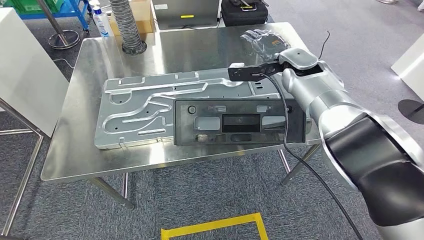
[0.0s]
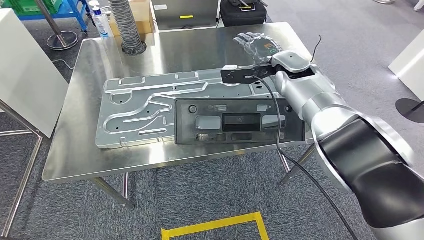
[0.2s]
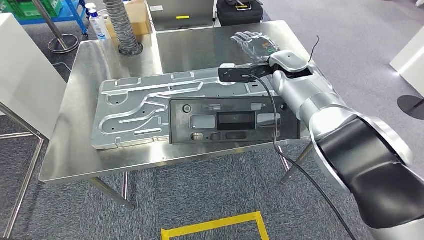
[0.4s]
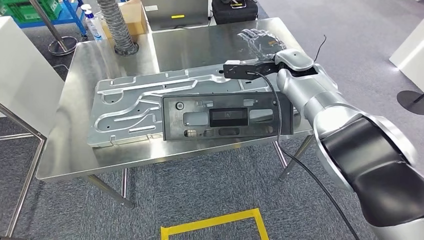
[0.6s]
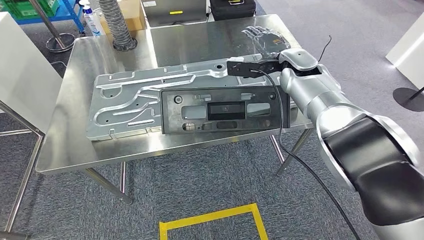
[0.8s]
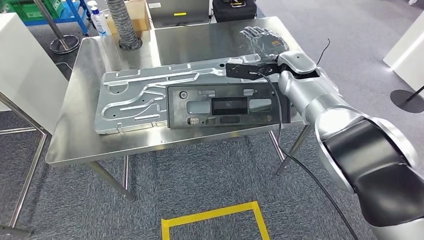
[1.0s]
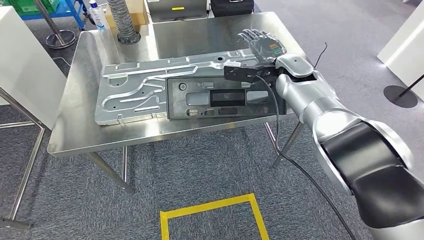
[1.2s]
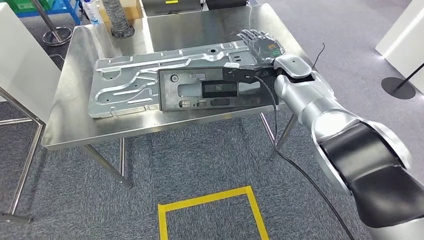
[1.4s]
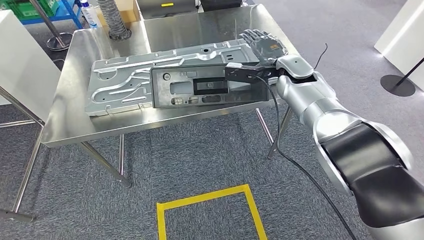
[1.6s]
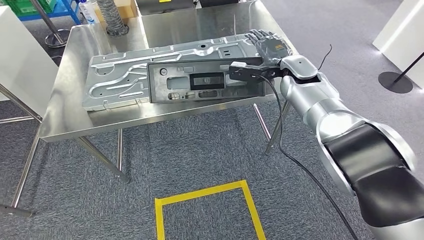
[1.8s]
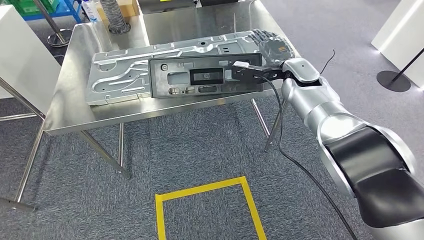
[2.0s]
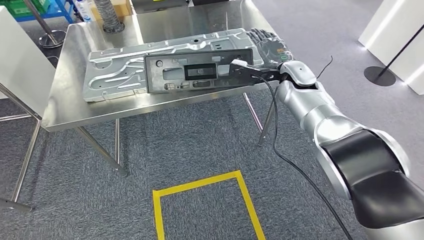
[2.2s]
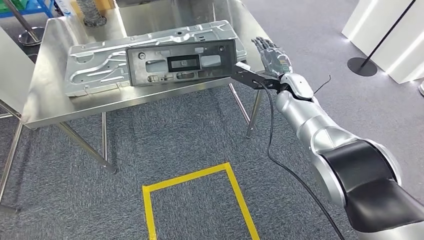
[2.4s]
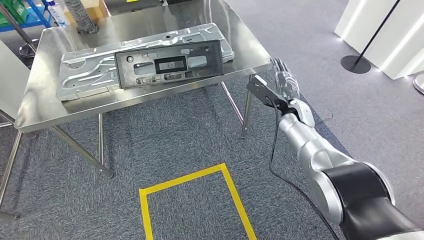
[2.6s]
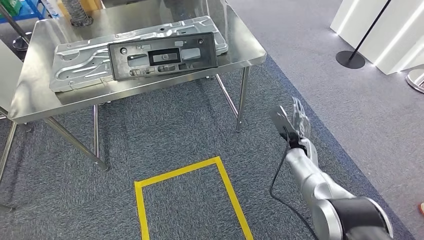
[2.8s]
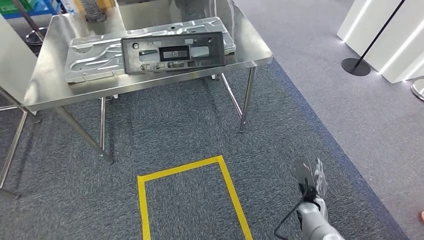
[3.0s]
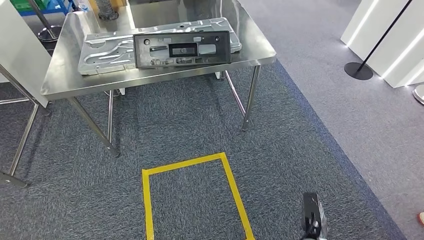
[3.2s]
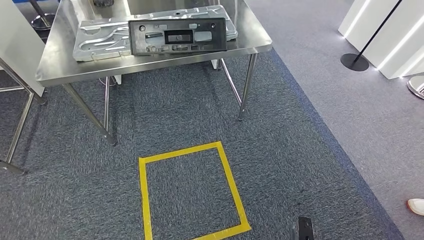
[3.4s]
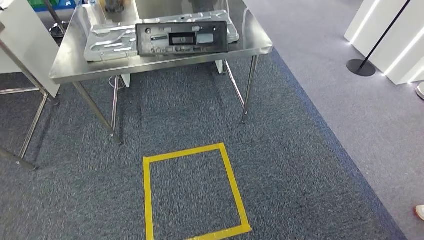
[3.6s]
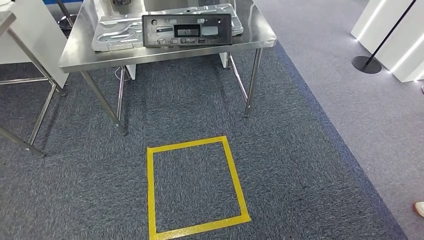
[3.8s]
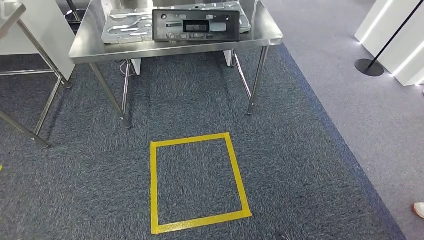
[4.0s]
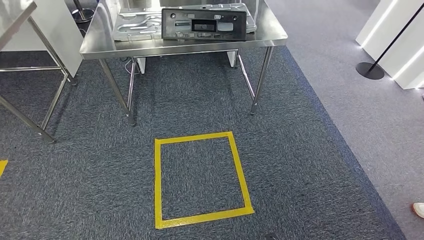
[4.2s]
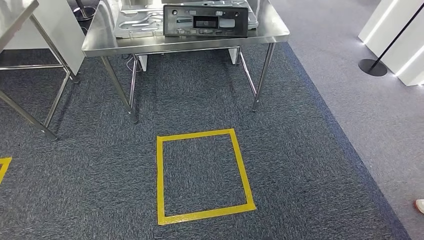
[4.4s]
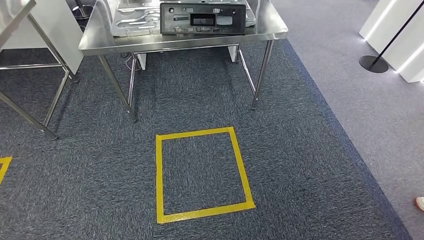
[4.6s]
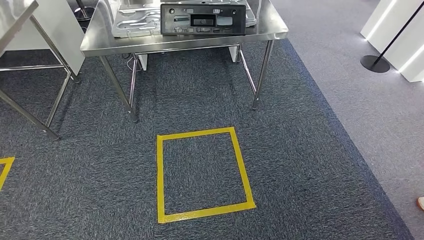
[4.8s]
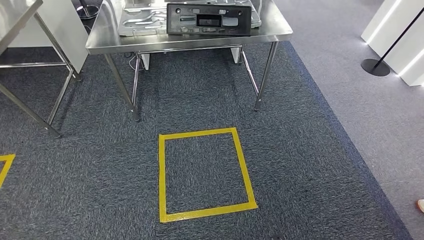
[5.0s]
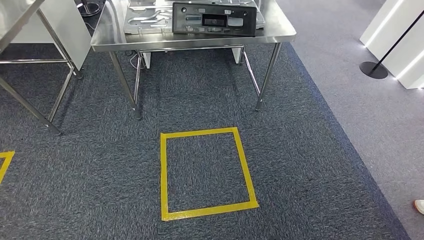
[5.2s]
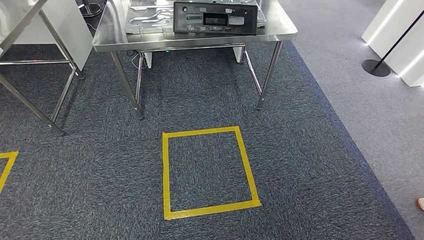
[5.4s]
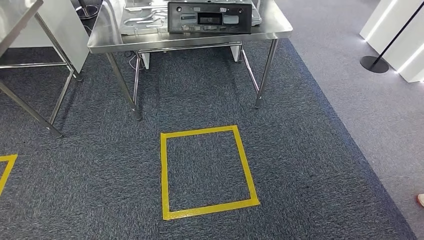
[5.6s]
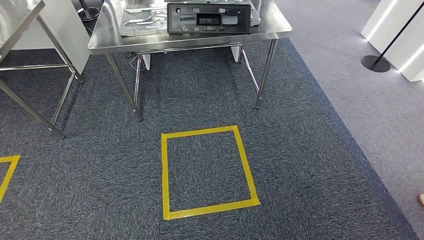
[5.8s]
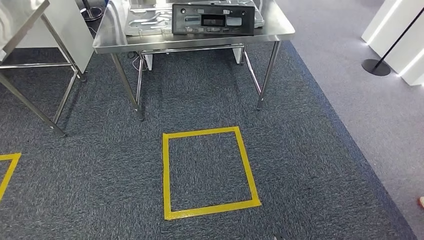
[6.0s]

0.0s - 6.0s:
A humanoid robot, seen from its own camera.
Step, 0.0s - 2.2s: Insert the large material into the corresponding slot on the workbench.
Step, 3.2s - 6.0s: Move to the initial position of the shelf.
4.4s - 6.0s: The left hand moves forward and backward over approximately 10 cm, changing direction 2 times, while the right hand travels backward and back again, some 10 cm each way.
